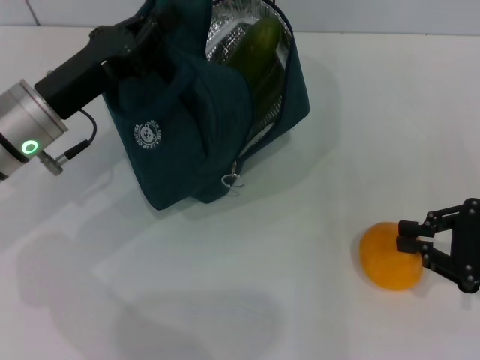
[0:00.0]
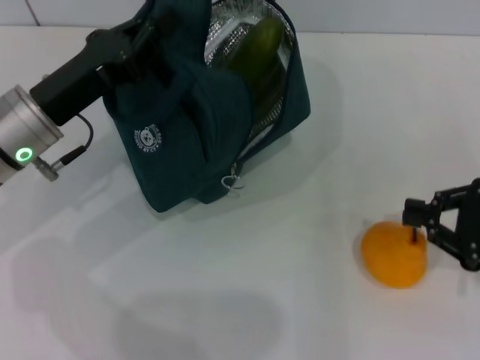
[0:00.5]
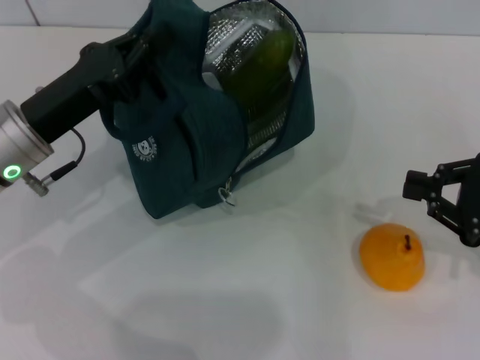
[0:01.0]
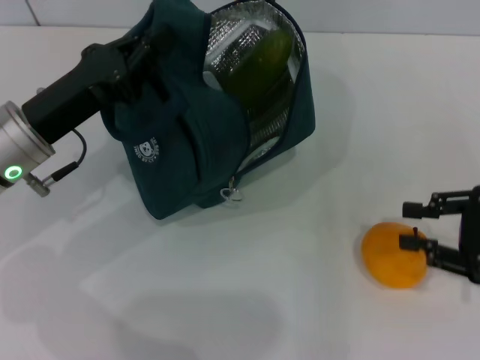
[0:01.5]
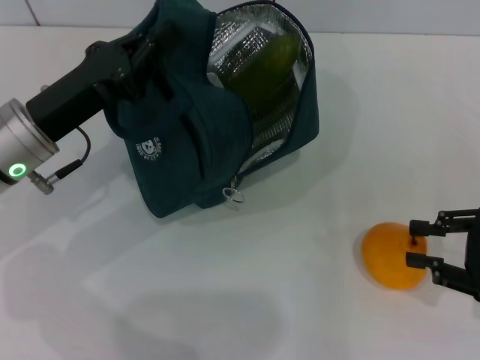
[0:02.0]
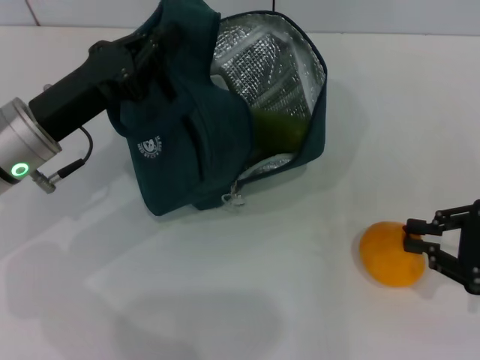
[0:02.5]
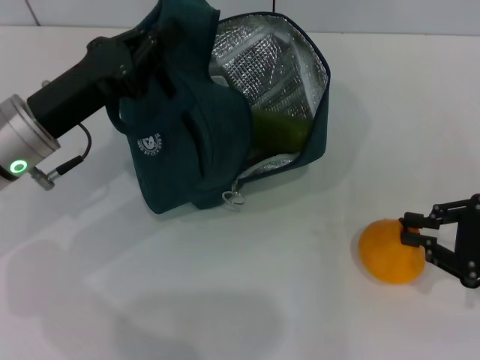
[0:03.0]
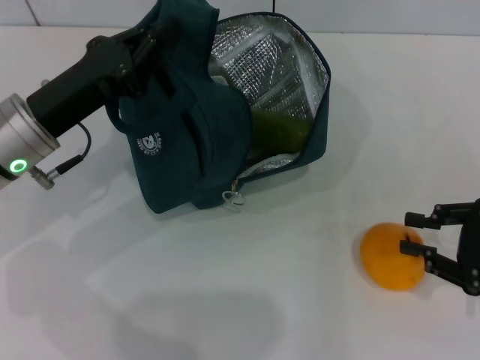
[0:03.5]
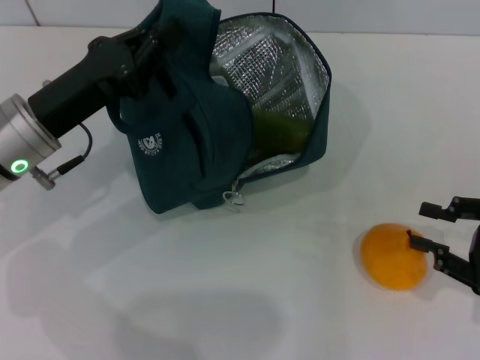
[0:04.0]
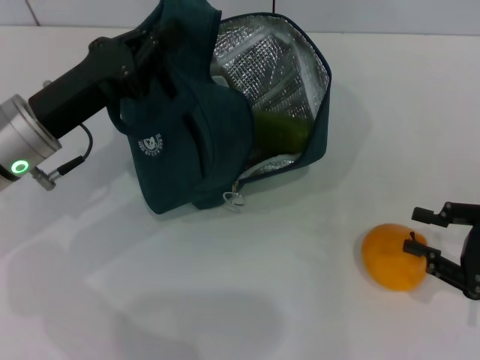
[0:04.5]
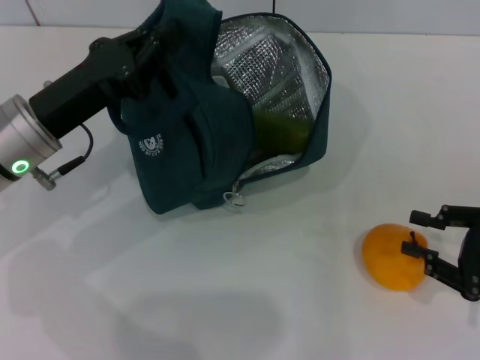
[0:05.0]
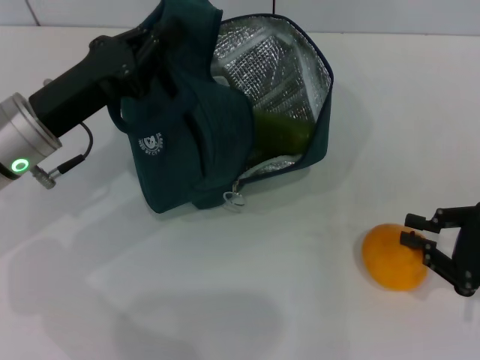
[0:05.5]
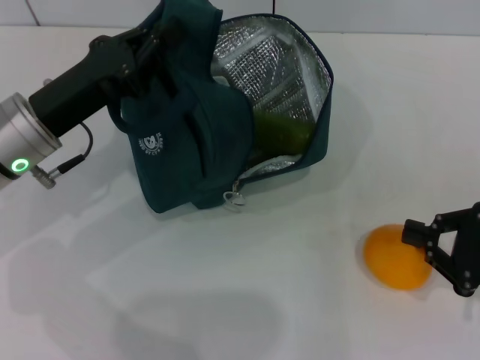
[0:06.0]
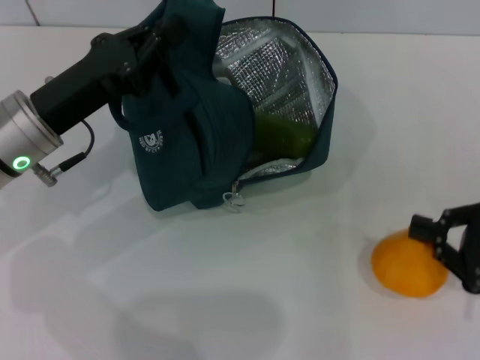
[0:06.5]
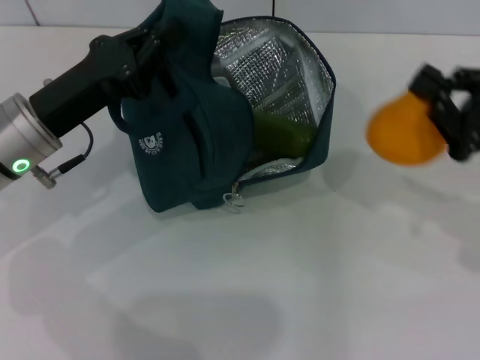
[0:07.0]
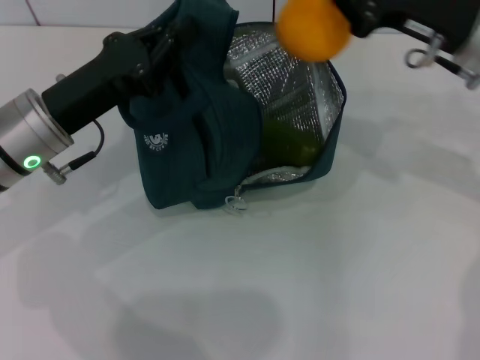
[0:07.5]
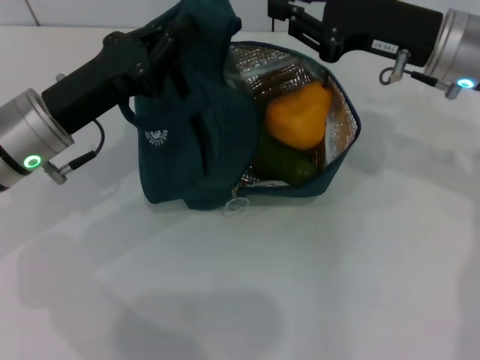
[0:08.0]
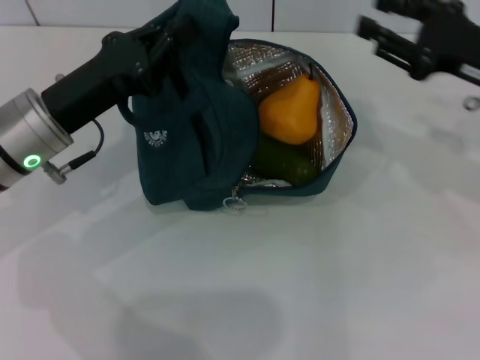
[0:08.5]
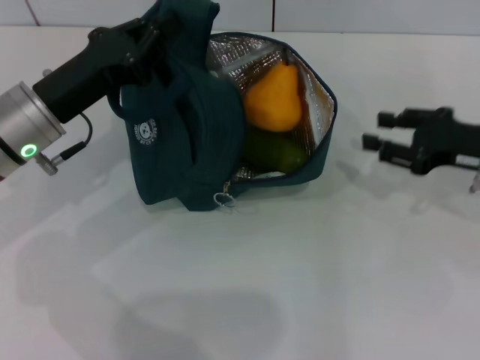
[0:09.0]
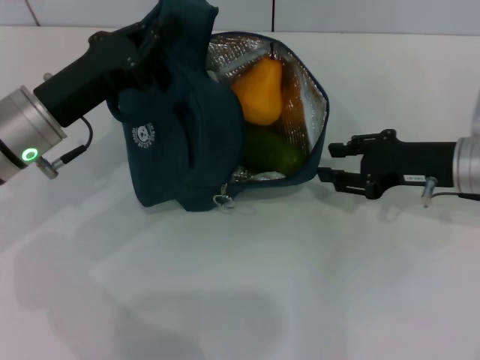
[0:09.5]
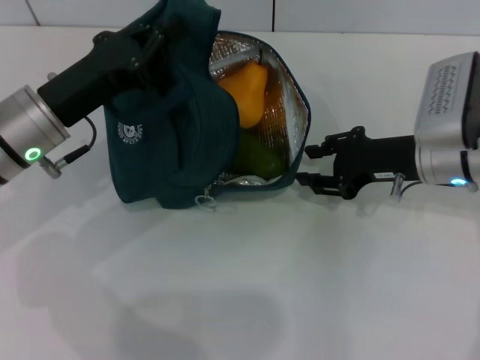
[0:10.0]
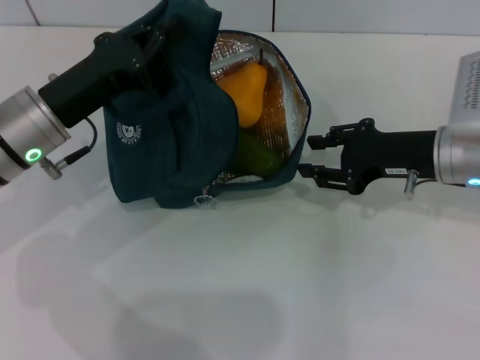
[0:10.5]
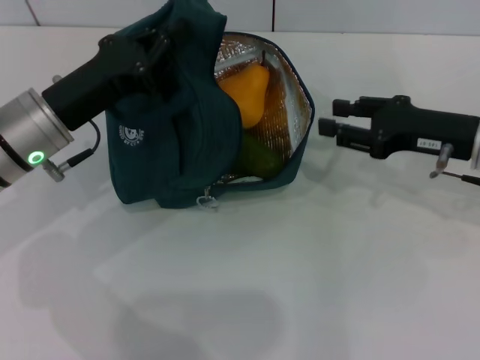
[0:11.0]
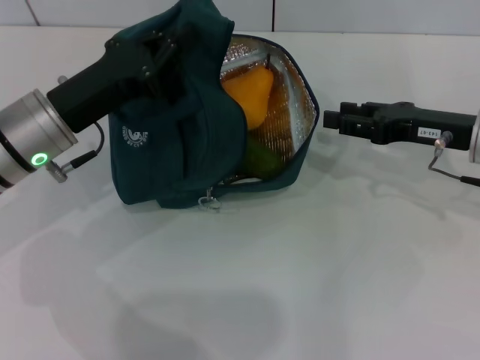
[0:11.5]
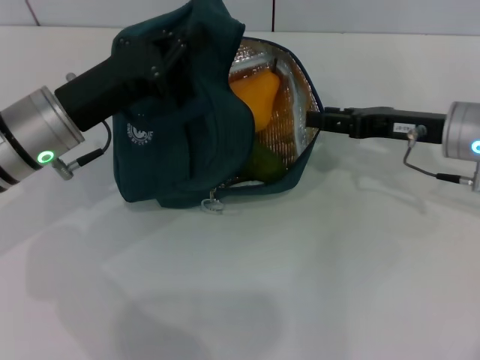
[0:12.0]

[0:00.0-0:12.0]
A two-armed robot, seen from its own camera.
Step, 0:00.0 to 0:06.0: Grab the pear with your right hand.
0:00.0 to 0:06.0: The grippers stay close to where they were, moving slightly.
0:06.0 to 0:08.0: The right gripper is displaced forward, to the left and upward by approximately 25 cm.
0:08.0 to 0:10.0: The right gripper moves downward, some 10 cm, reaches about 10 cm to the right, then returns, and opens its fingers.

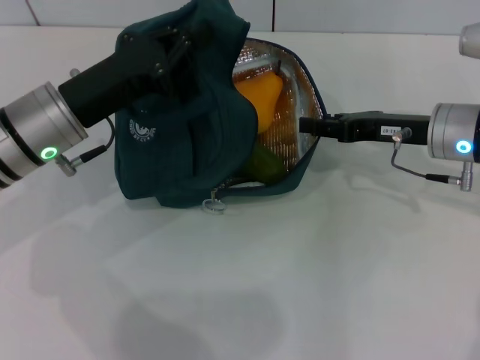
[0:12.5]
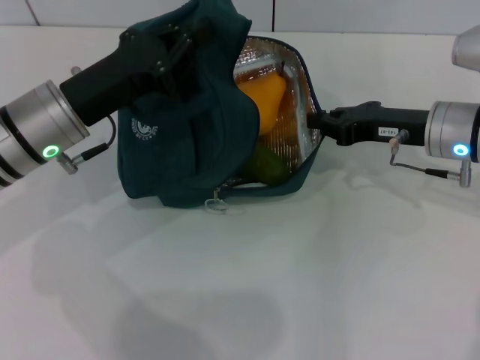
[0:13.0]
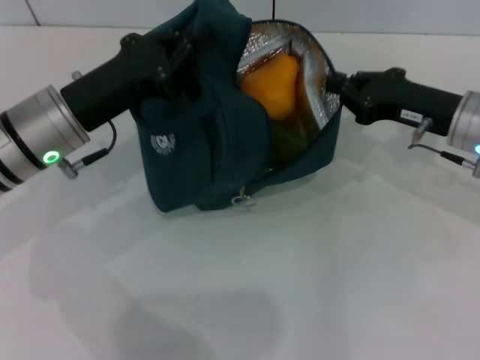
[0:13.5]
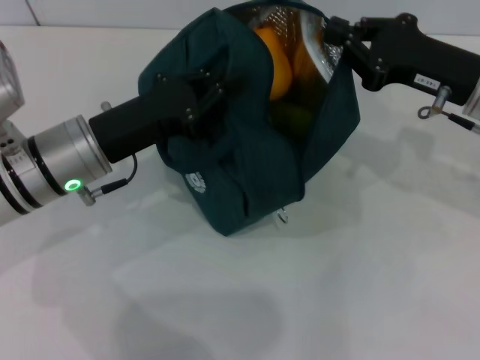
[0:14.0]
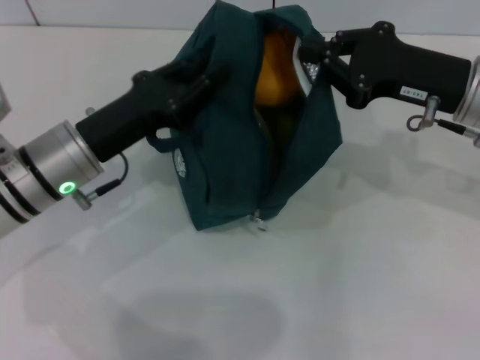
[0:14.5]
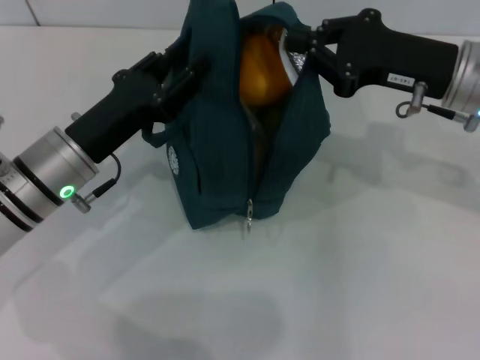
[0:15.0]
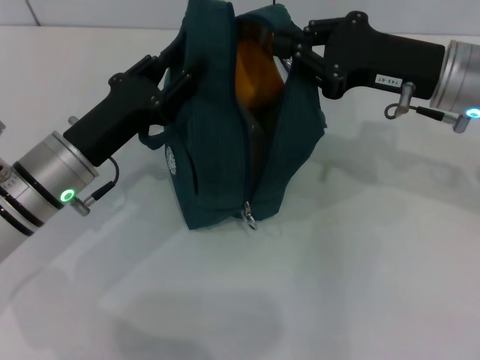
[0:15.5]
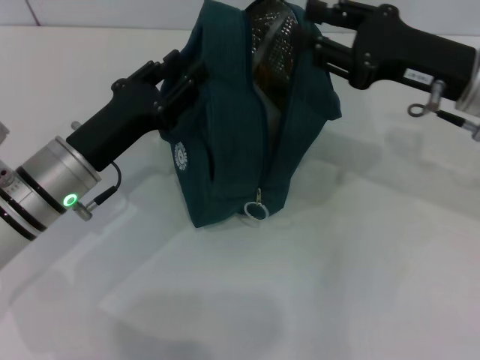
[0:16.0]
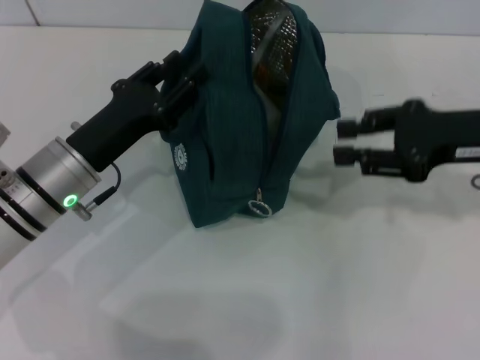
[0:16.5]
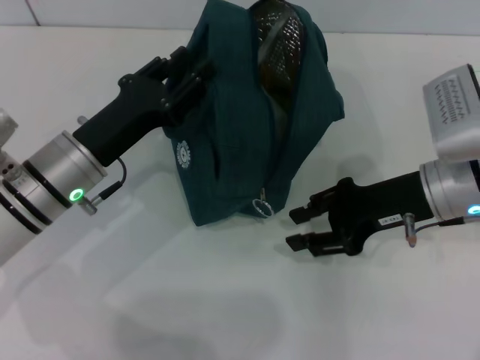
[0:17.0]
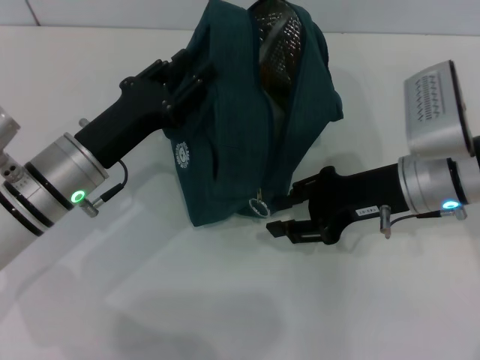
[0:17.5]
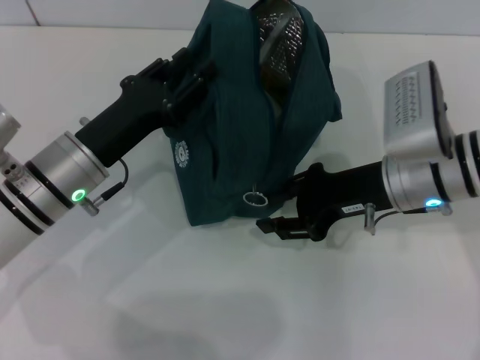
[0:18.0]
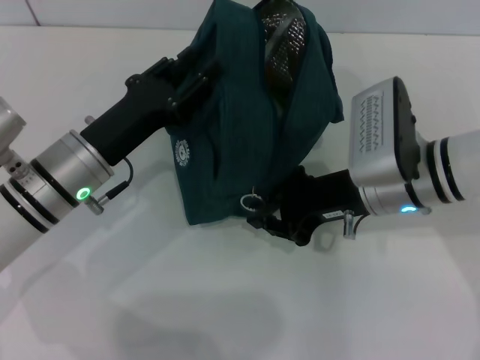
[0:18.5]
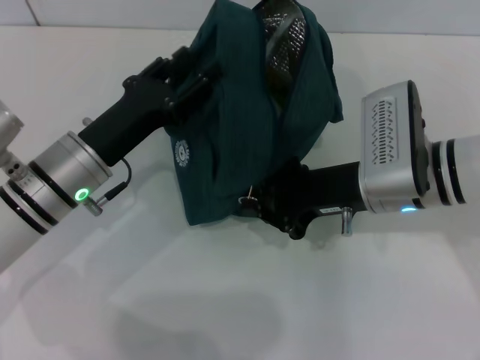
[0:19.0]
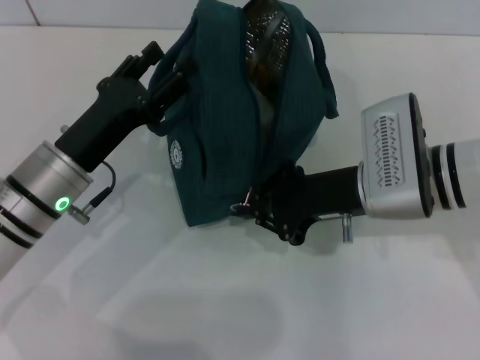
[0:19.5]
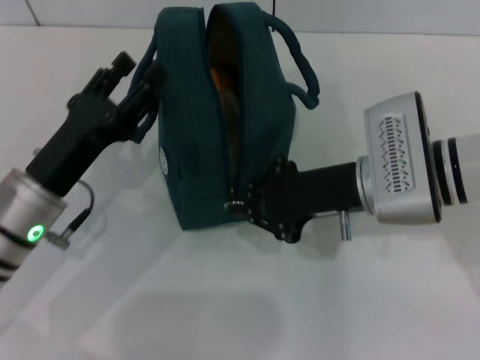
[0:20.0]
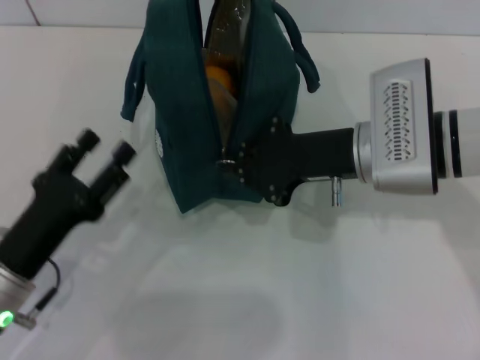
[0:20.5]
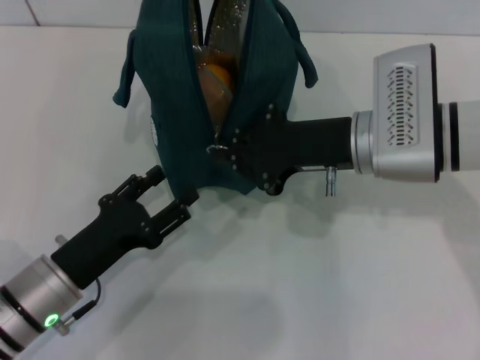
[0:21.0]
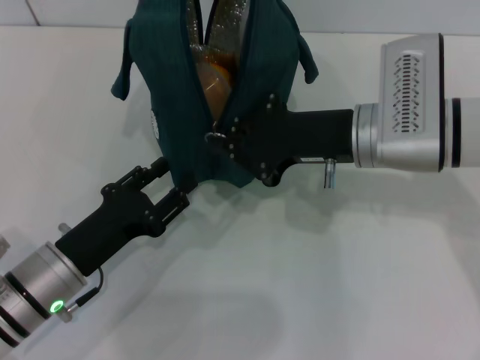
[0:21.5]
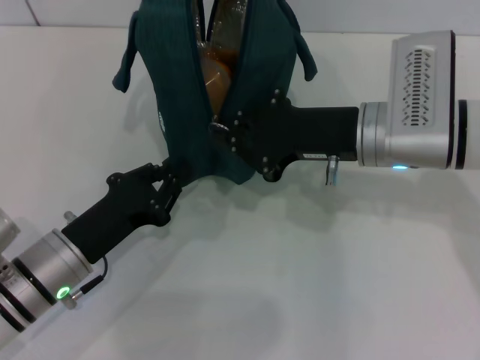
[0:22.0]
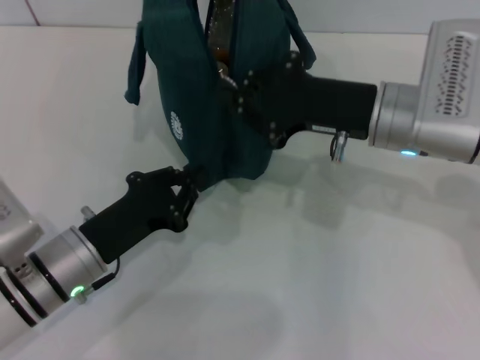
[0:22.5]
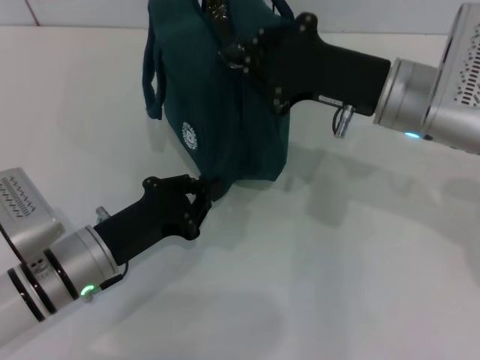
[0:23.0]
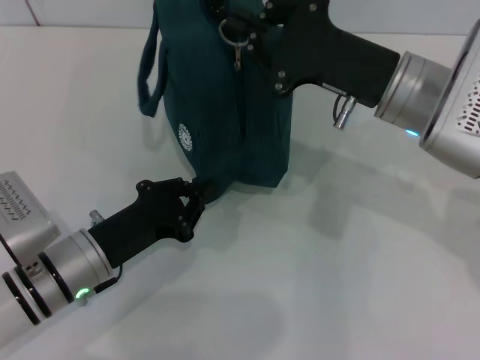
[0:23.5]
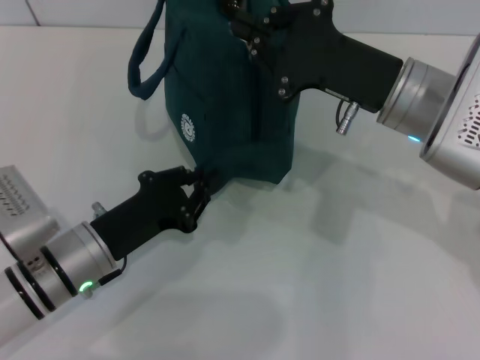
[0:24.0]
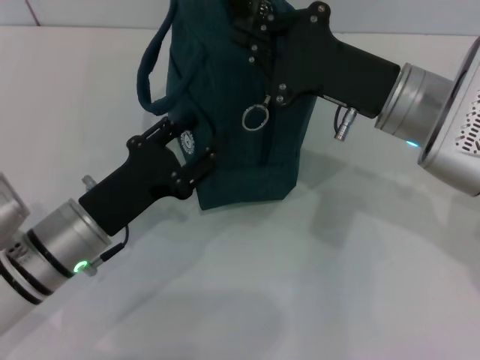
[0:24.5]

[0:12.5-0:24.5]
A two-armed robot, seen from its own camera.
Step, 0:12.5 to 0:16.0: Hold the lunch bag with your right hand.
Step, 0:16.5 to 0:19.5: Hold the lunch bag with your left hand.
0:12.5 to 0:14.5: The right gripper heads upward, covering some 5 cm, and closes.
0:14.5 to 0:16.5: The right gripper opens its fingers. Meanwhile the left gripper opens.
0:16.5 to 0:18.5: The right gripper goes some 15 cm to the left and downward.
0:18.5 to 0:20.5: The left gripper travels backward and to the left by about 15 cm.
0:20.5 to 0:22.5: The left gripper ends up some 5 cm from where it was, and closes.
0:22.5 to 0:24.5: The left gripper opens.

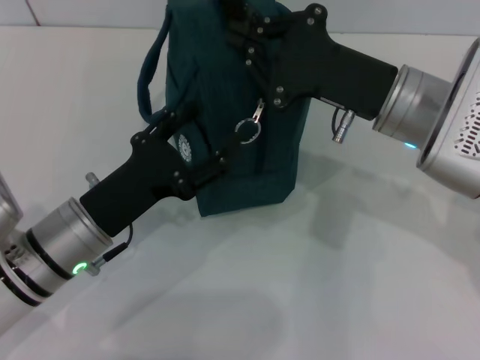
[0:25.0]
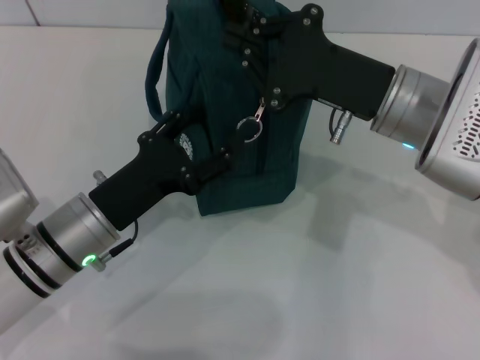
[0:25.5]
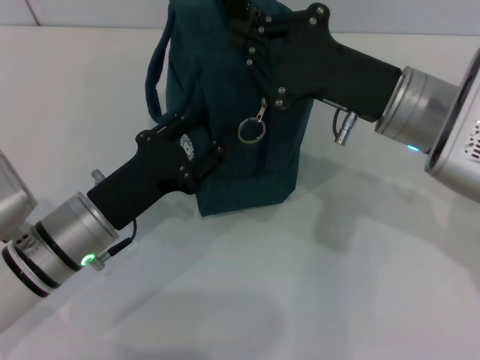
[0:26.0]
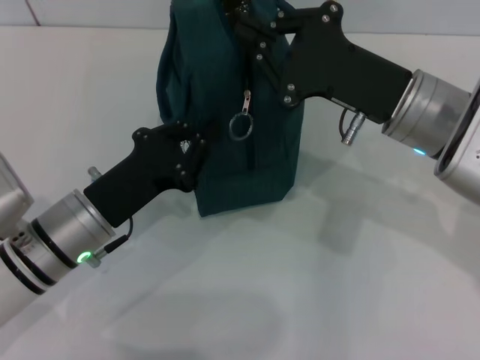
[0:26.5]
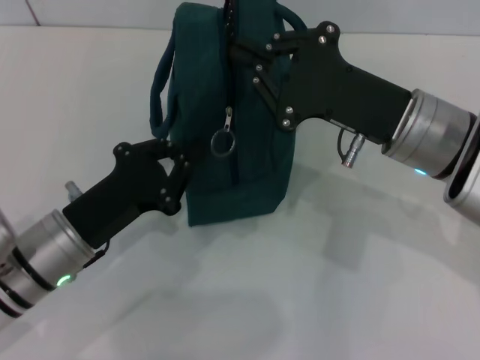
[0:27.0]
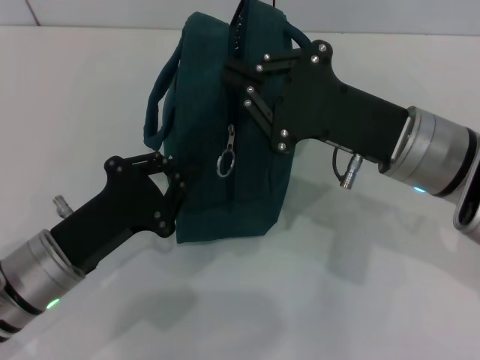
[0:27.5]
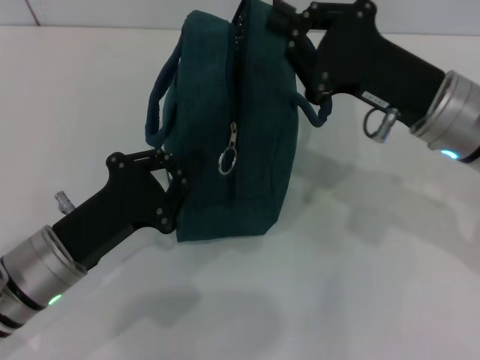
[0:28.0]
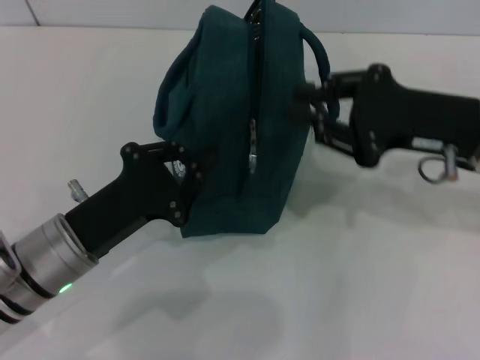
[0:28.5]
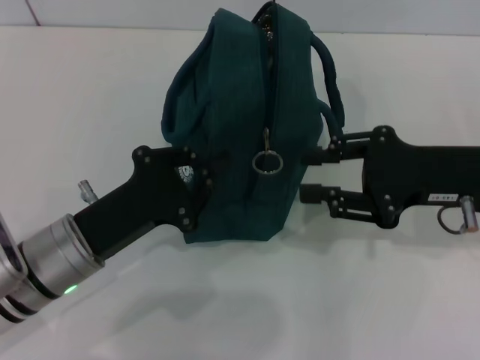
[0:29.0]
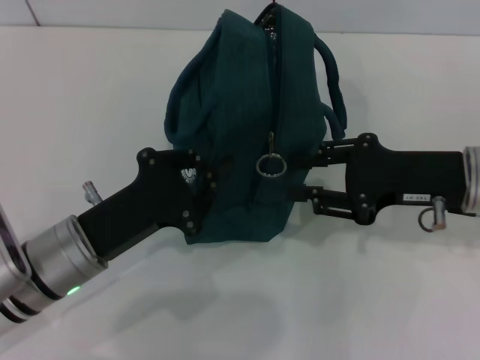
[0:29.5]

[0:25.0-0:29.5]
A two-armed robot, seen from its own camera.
0:25.0 to 0:27.0: The left gripper closes its fingers.
0:27.0 to 0:29.5: The right gripper travels to the right by about 5 cm, and opens its fingers.
